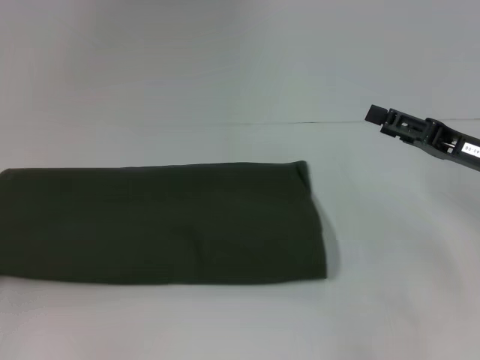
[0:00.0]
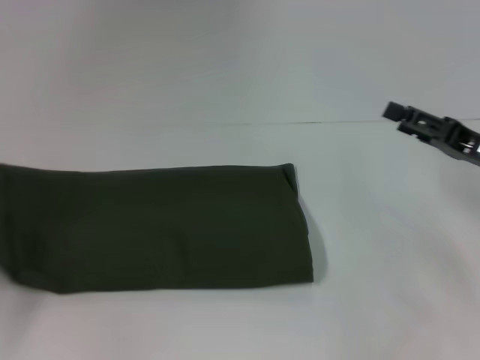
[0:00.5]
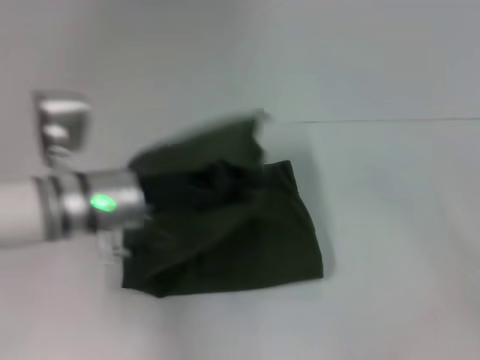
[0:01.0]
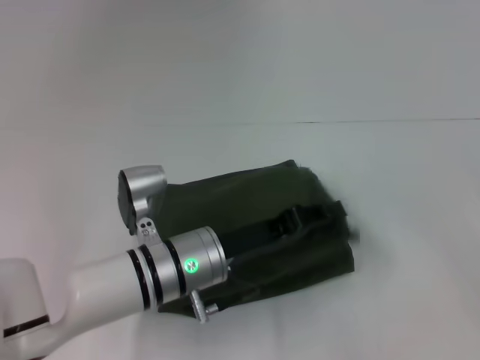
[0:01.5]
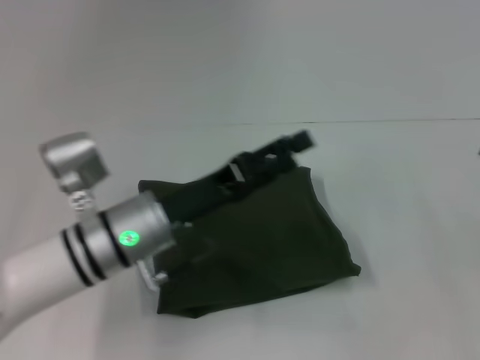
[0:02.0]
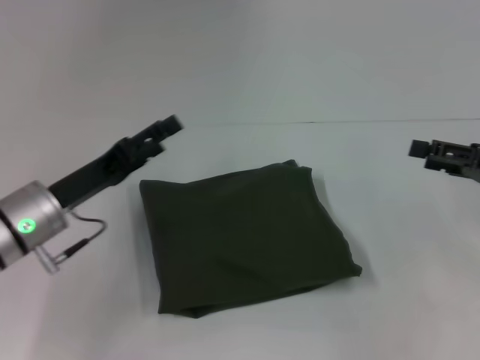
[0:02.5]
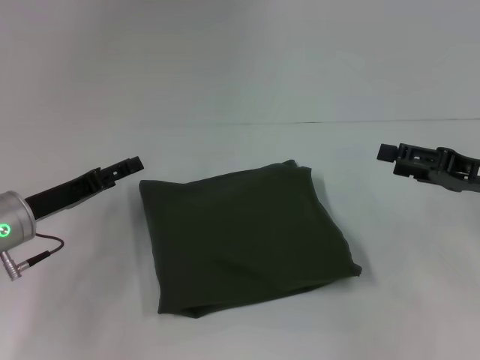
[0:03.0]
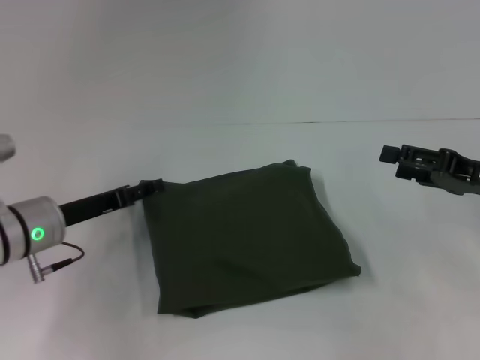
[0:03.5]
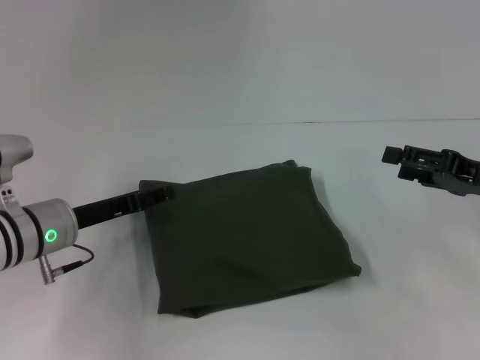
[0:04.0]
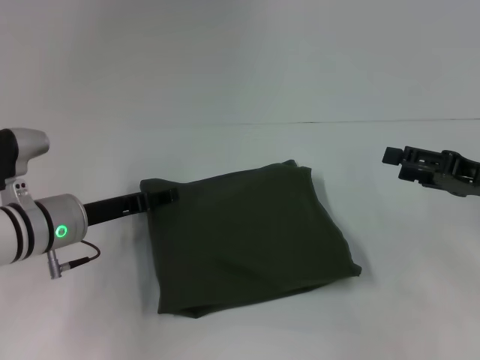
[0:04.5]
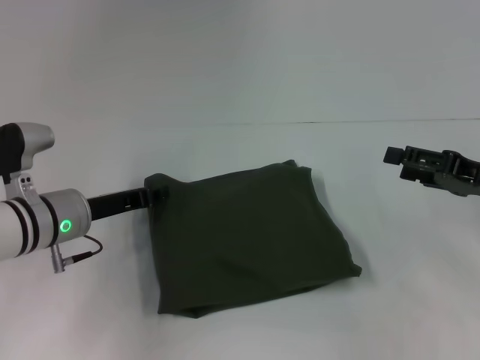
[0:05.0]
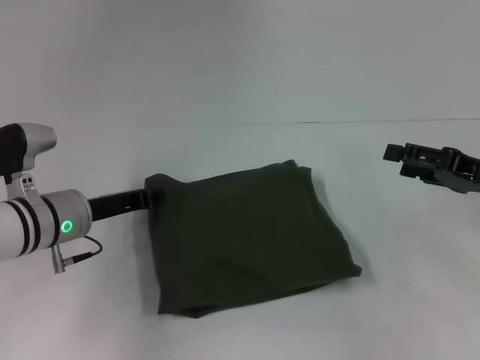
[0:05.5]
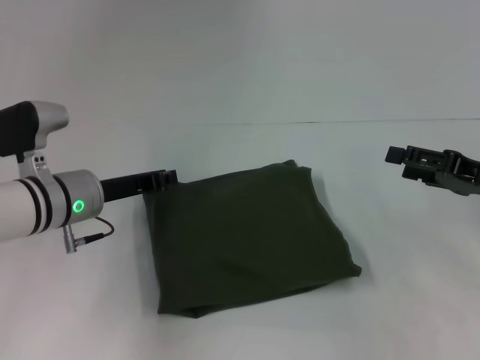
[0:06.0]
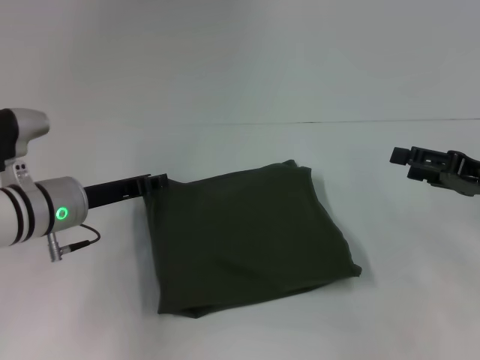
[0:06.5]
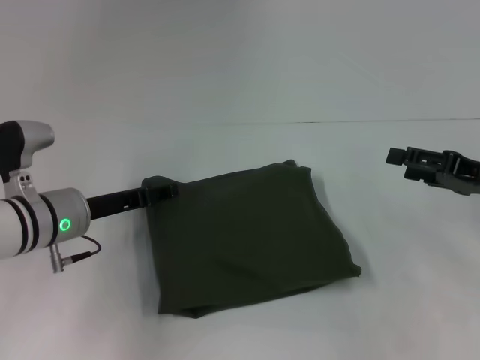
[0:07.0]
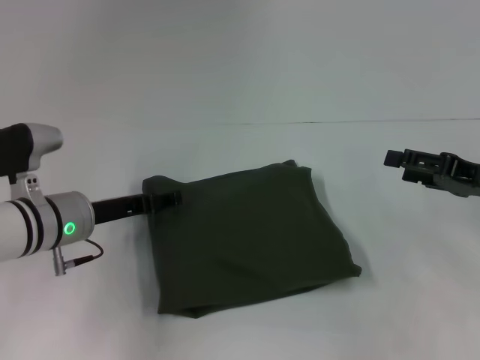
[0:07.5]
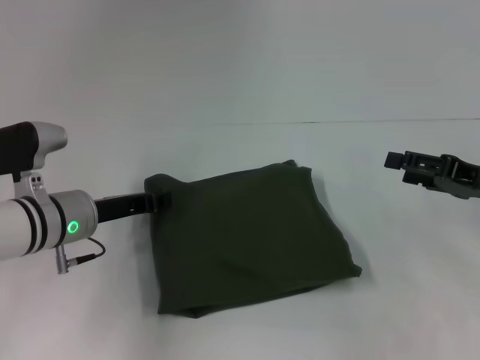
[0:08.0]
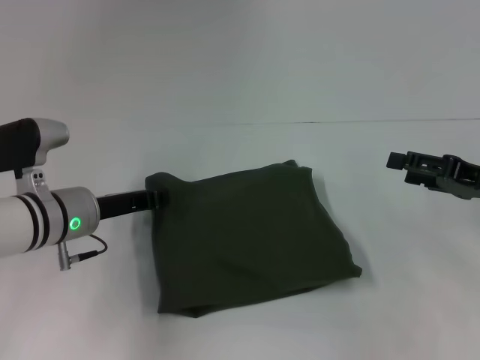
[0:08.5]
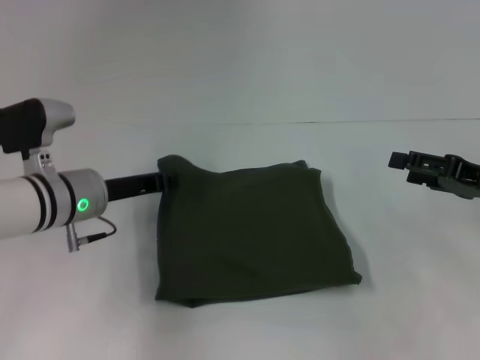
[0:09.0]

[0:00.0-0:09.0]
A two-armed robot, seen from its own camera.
Step, 0:00.0 to 0:02.0: Fold the clothes with your left hand.
0:00.0 to 0:02.0: The right gripper shifts about 10 cm to the right. Meanwhile the left gripper is displaced to the right by roughly 30 cm, and opens its fingers.
0:02.0 to 0:04.5: Both grippers move to the left, some 10 cm.
0:04.5 to 0:07.0: The left gripper closes its fingers.
0:07.0 to 0:09.0: The left gripper closes.

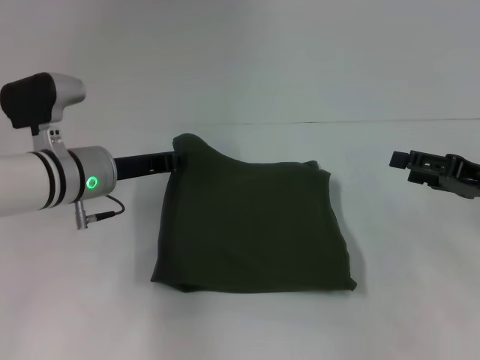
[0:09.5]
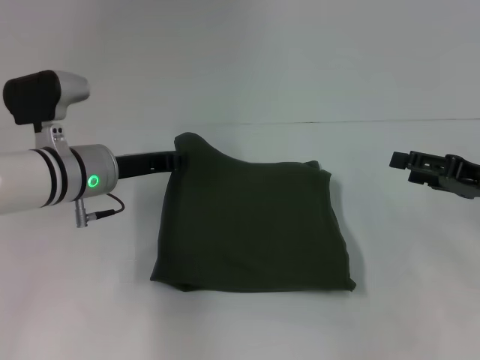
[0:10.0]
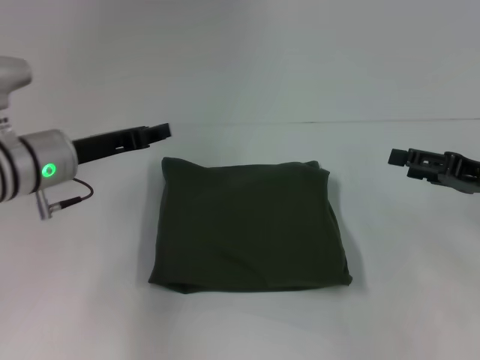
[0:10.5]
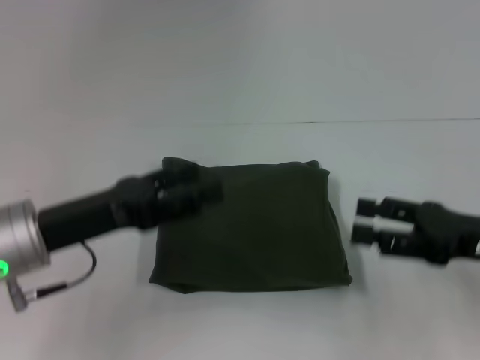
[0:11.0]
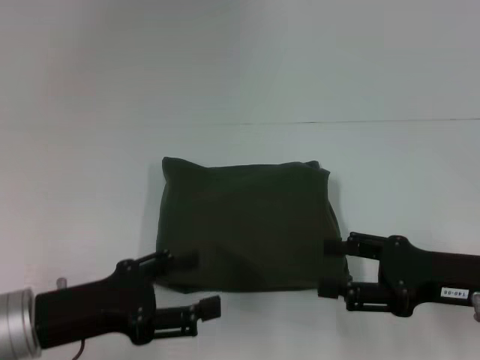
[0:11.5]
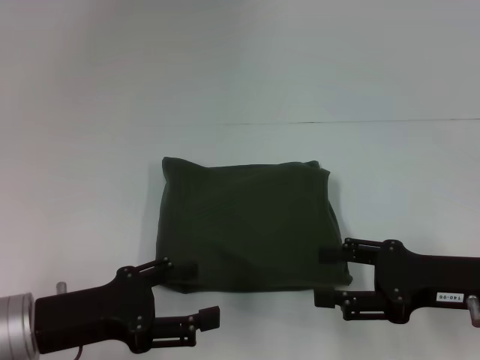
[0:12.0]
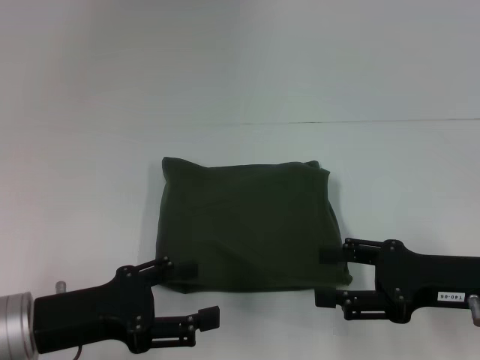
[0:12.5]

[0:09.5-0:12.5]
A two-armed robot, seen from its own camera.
0:09.5 to 0:11.0: The right gripper shifts approximately 5 cm backward. Meanwhile the left gripper travels backward by approximately 10 cm, and opens its fingers.
0:11.0 to 0:12.5: The left gripper ends up roughly 5 cm from where it was.

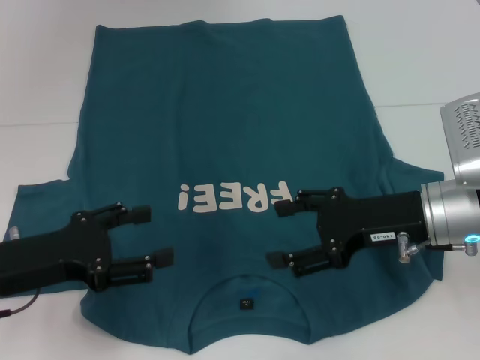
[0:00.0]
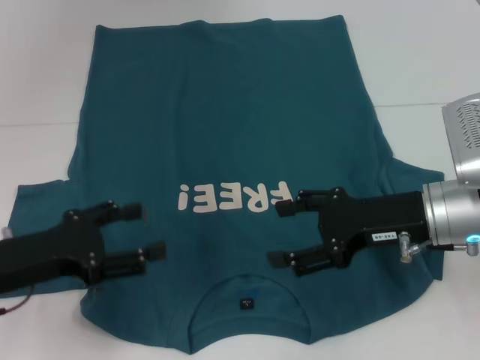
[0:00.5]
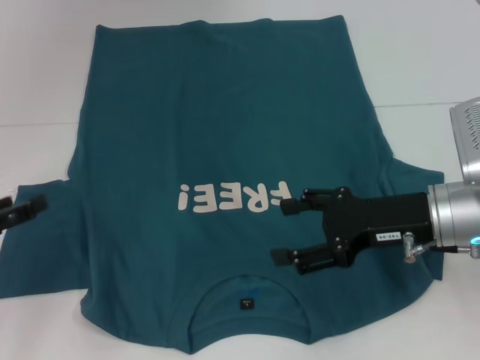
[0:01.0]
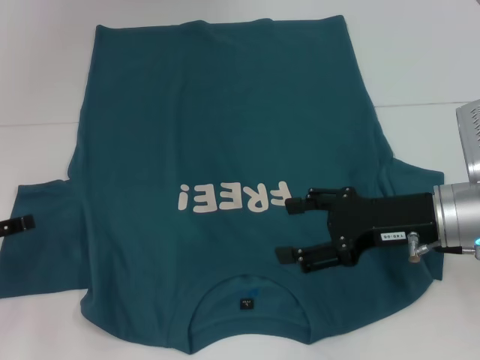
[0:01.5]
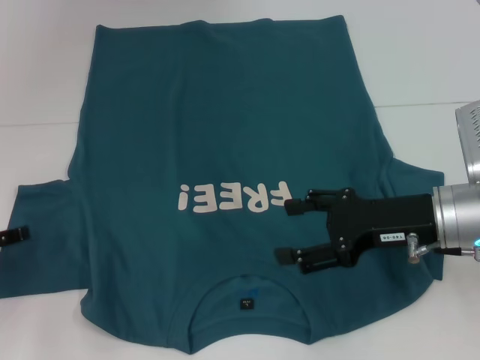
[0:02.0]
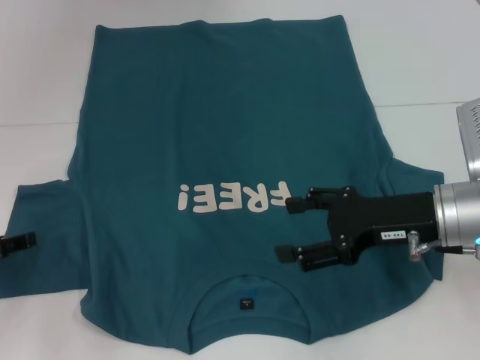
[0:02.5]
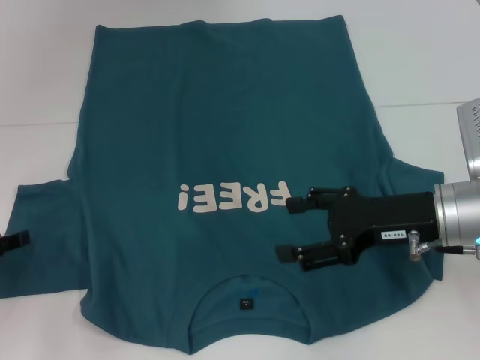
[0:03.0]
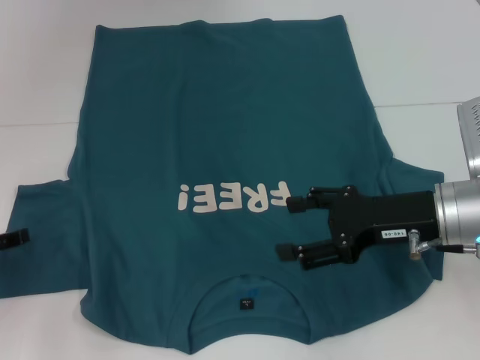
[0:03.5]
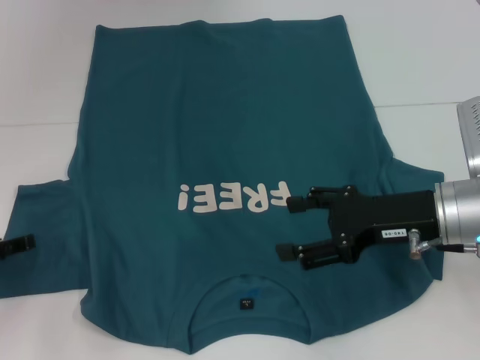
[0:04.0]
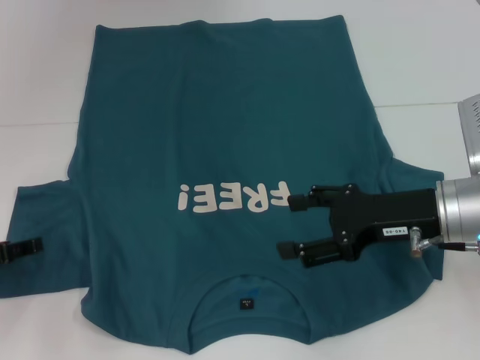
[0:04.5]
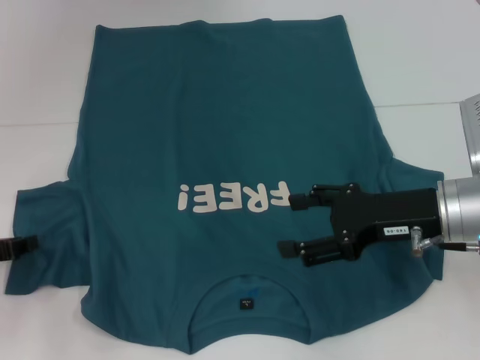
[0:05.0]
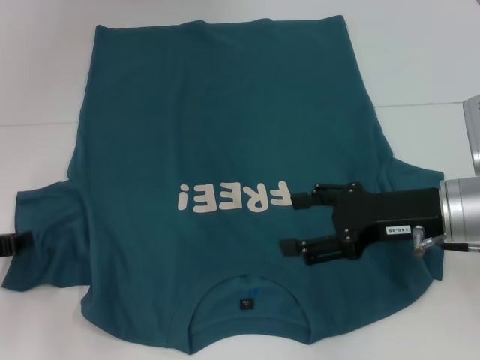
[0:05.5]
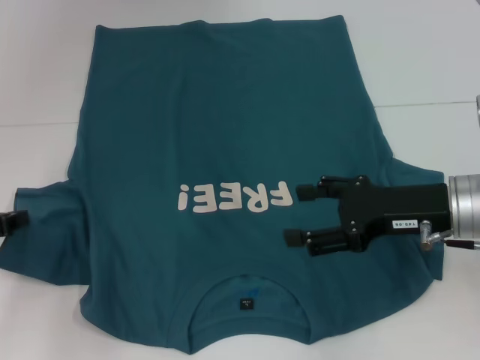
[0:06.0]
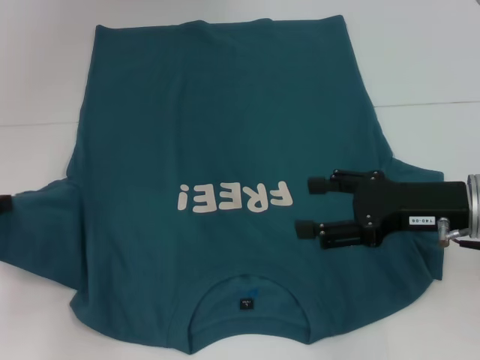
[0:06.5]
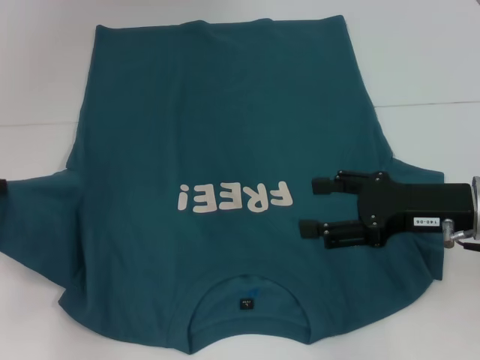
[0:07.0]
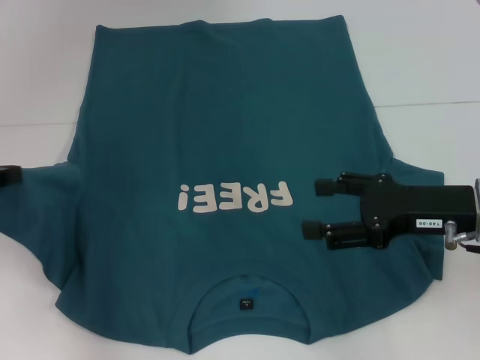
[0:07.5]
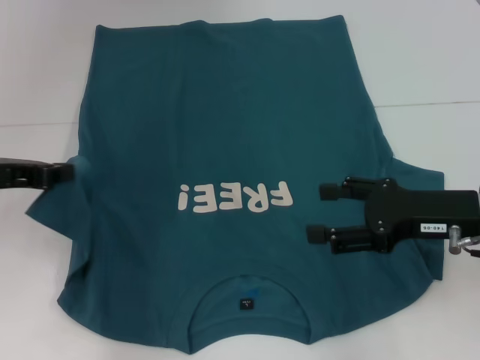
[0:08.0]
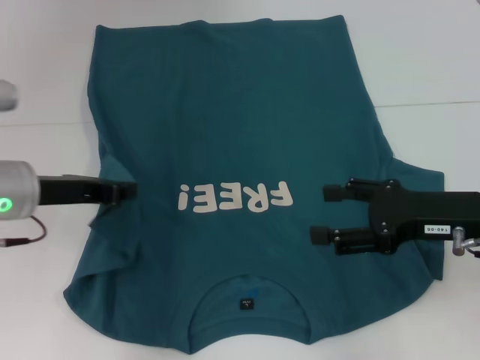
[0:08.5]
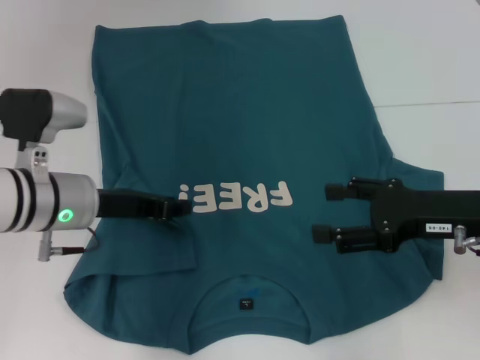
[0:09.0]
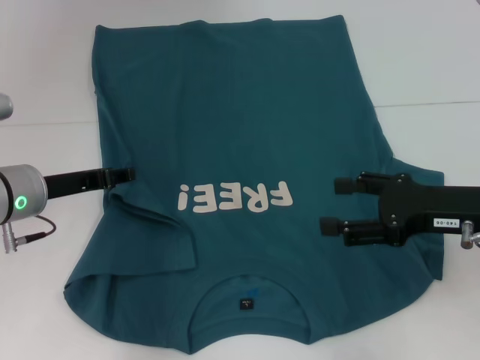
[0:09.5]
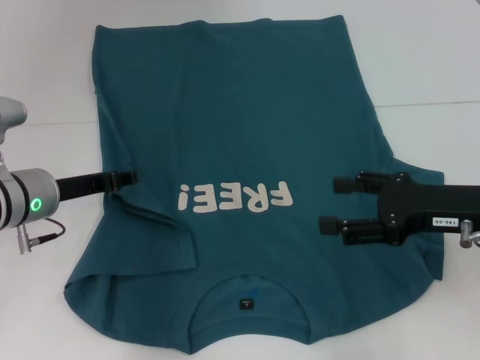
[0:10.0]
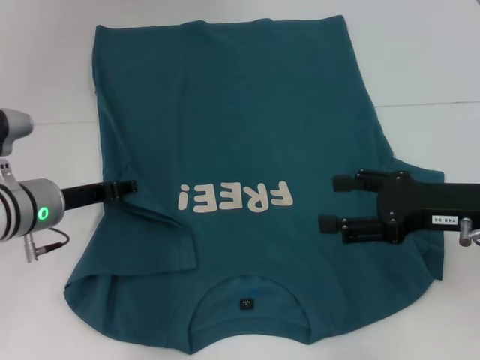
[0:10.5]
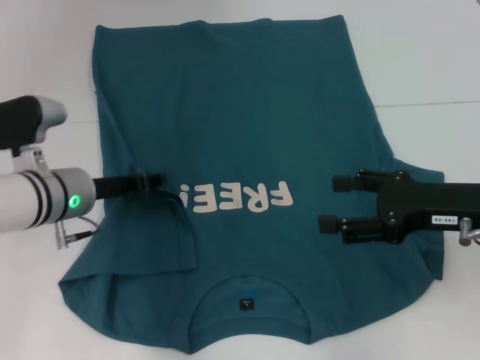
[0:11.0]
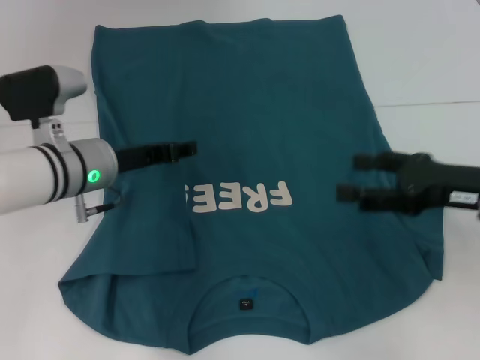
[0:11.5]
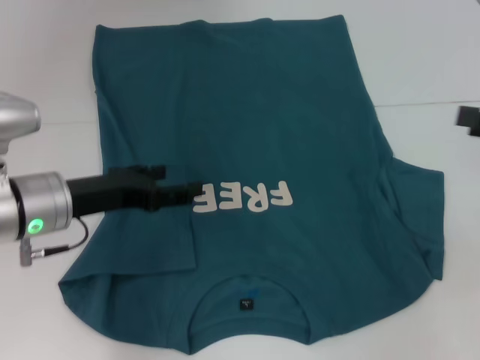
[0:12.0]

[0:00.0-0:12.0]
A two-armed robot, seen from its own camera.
Step, 0:00.0 to 0:11.5: Fold the bottom left sleeve with your left hand.
0:00.0 to 0:02.0: The left gripper heads to the left, covering approximately 10 cm.
0:02.0 to 0:04.0: Neither gripper changes place.
0:04.0 to 0:06.0: The left gripper closes.
0:06.0 to 0:08.0: The left gripper shifts approximately 10 cm upward and to the right.
0:08.0 to 0:10.0: The left gripper travels downward and to the right by some 10 cm, and opens up.
0:10.0 to 0:12.0: The right gripper heads to the right and upward, covering about 10 cm.

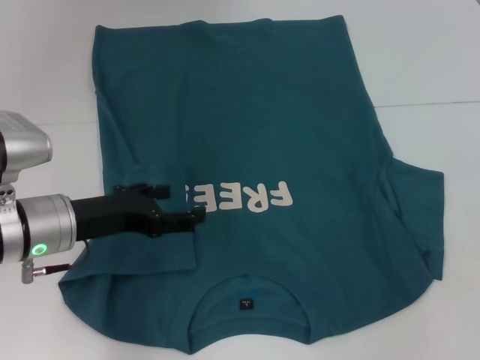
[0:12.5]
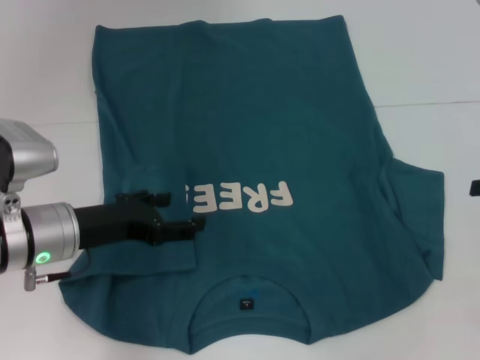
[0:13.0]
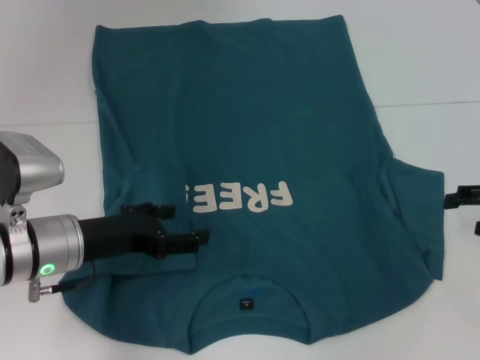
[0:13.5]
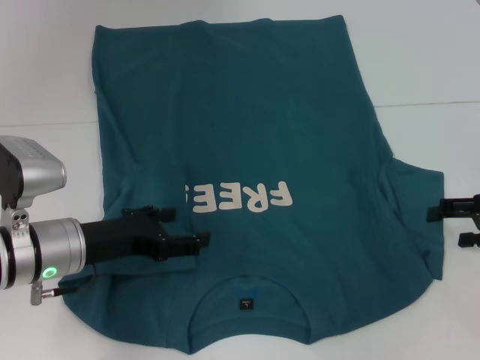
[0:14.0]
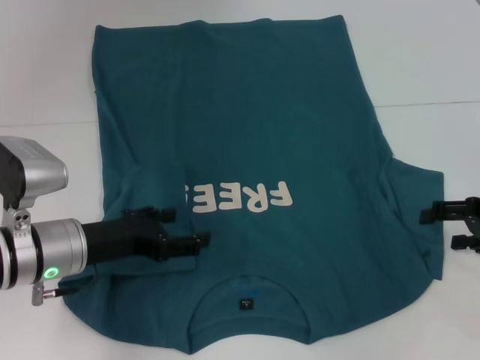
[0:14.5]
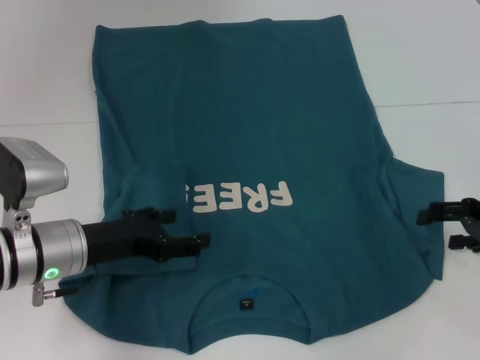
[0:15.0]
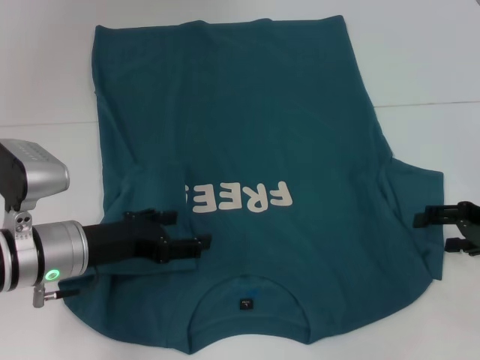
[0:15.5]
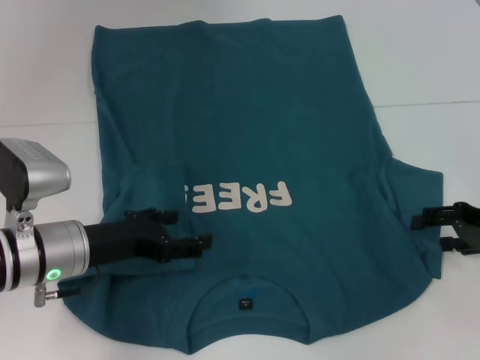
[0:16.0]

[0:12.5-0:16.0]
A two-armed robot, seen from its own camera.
0:12.5 to 0:14.5: The right gripper goes approximately 10 cm downward.
0:14.5 to 0:16.0: The grippers stay close to where they were, moving slightly.
